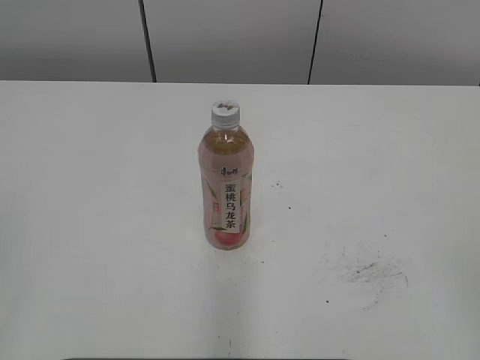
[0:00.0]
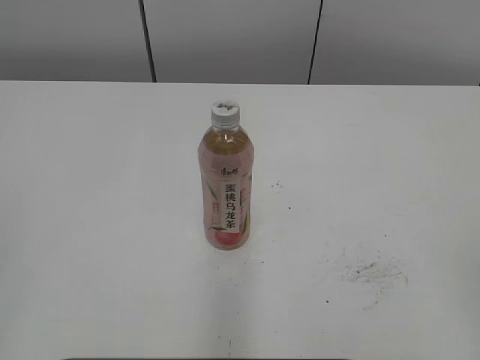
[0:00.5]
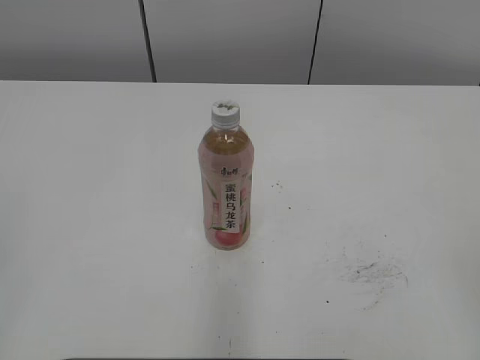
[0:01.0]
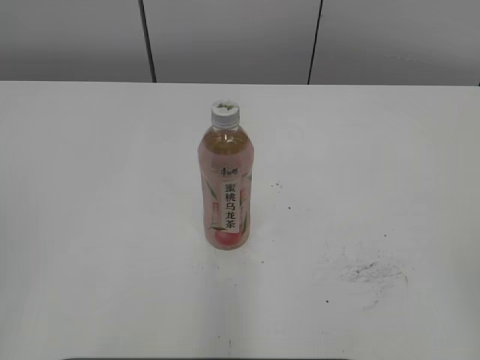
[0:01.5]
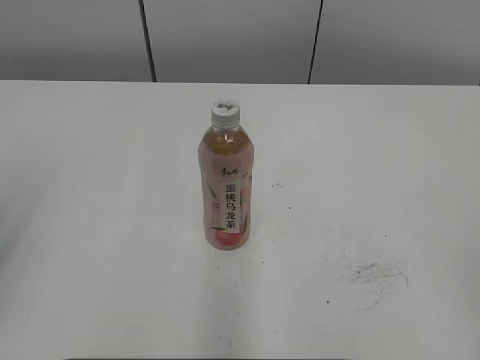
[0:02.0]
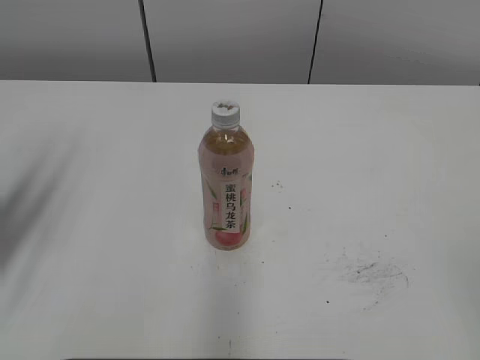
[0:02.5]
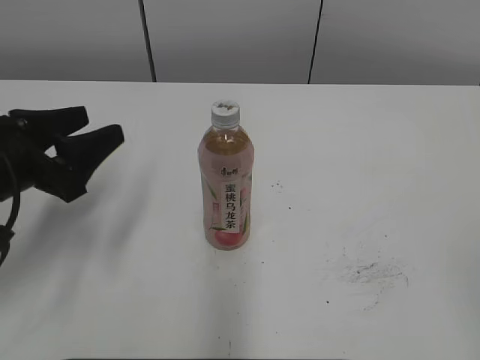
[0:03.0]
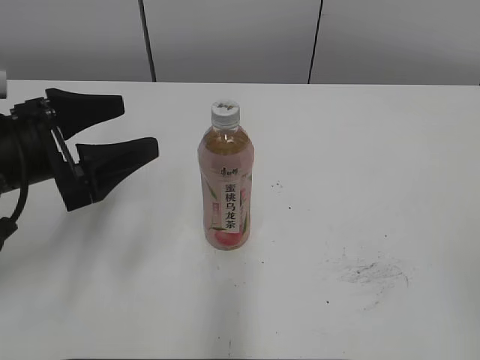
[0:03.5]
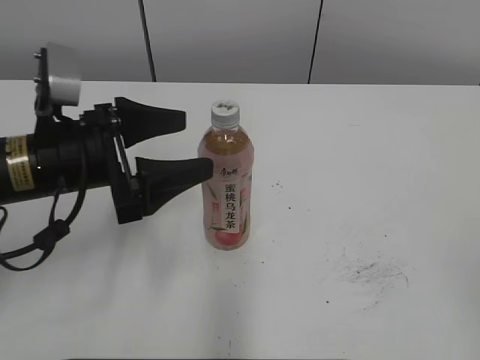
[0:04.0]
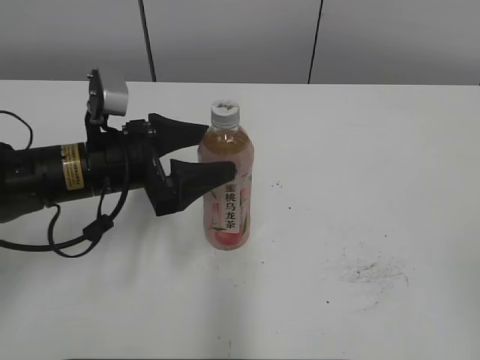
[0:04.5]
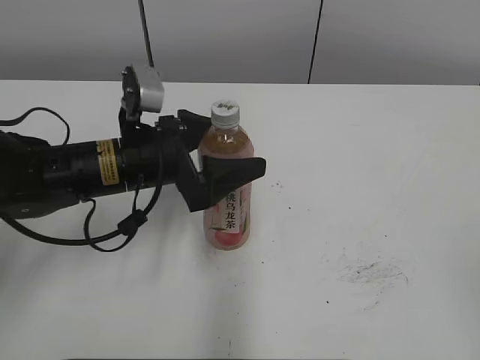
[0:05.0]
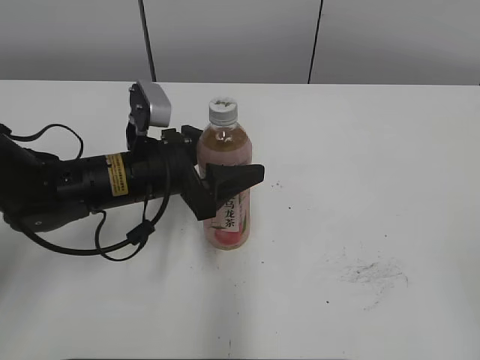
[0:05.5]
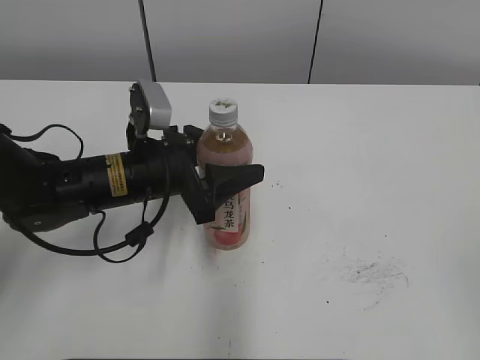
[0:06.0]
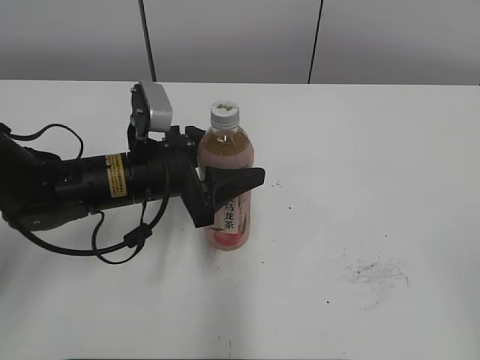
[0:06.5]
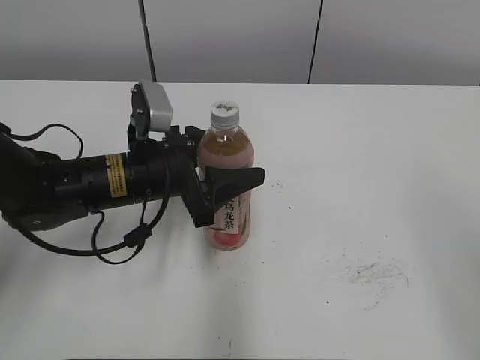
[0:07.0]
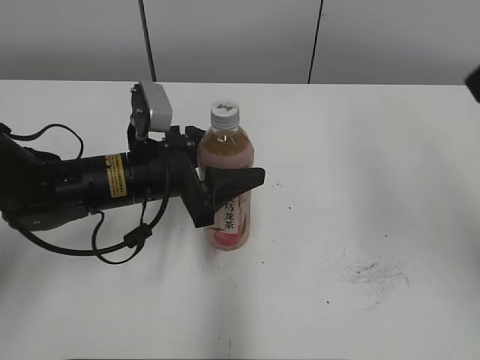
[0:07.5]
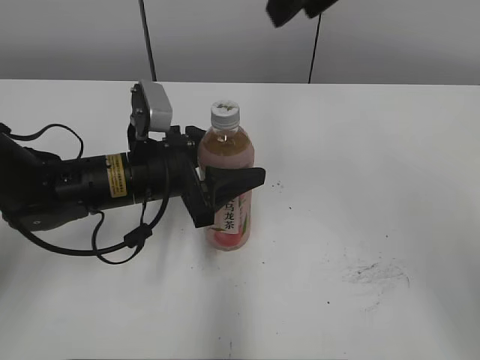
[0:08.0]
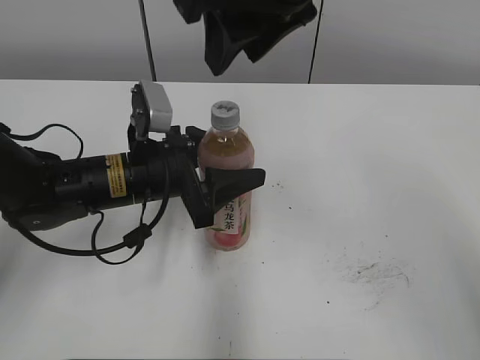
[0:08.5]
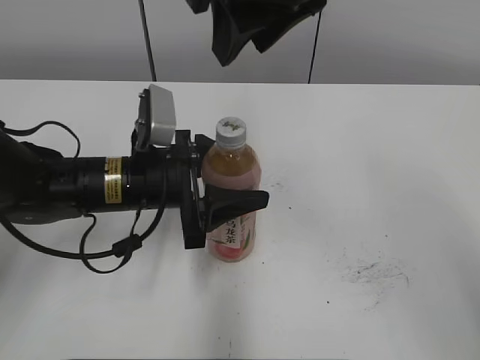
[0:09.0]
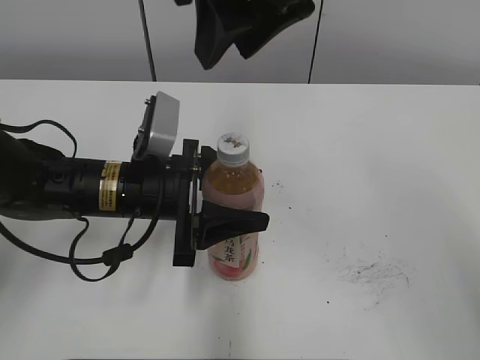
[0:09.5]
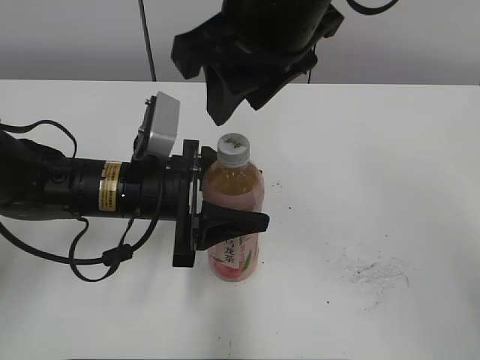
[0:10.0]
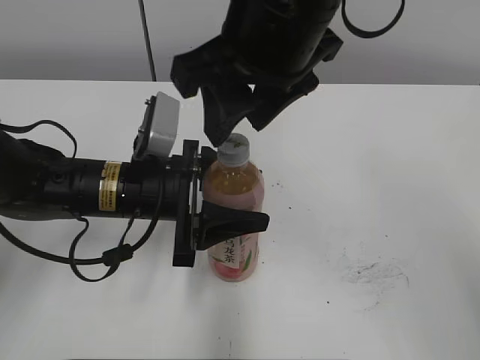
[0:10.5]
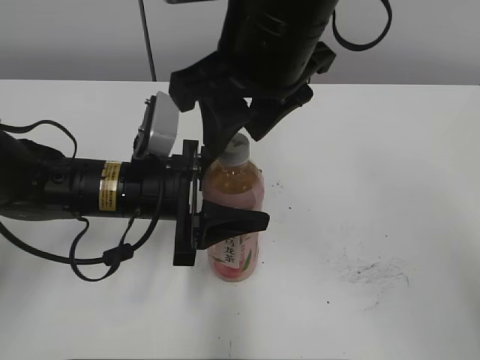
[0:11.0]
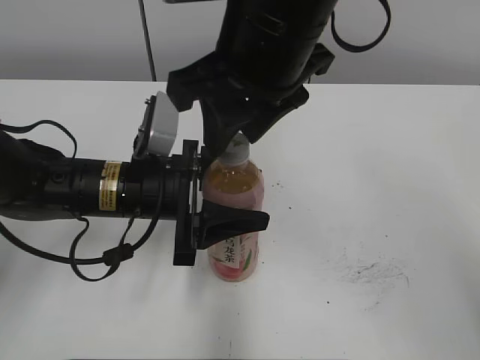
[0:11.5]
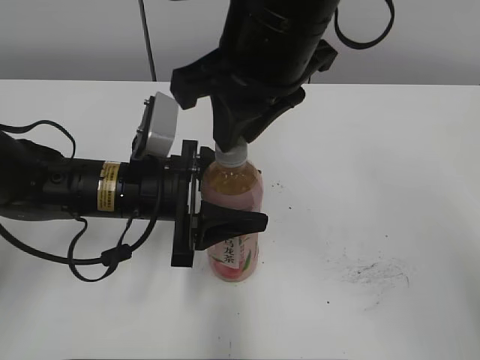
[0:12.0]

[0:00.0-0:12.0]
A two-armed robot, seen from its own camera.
Step, 0:00.0 to 0:06.0: Grab the Peach Oolong Tea with the left hand.
Step, 0:06.5 to 0:10.0: Move the Peach Oolong Tea from left to right.
0:02.0 to 0:04.0: The left gripper shifts about 25 cm forward, to the right and downward, and opens its fingers.
0:04.0 to 0:06.0: The left gripper shifts roughly 10 cm to the right and downward, and closes its fingers.
0:06.0 to 0:08.0: The right gripper shifts roughly 40 cm forward and to the left, and closes up.
0:08.0 to 0:10.0: The right gripper goes approximately 10 cm to the left and downward.
0:10.0 to 0:12.0: The grippers stay close to where they were, moving slightly.

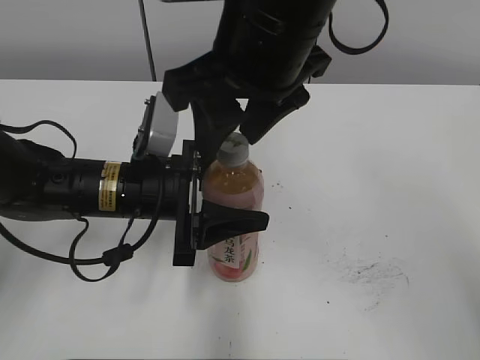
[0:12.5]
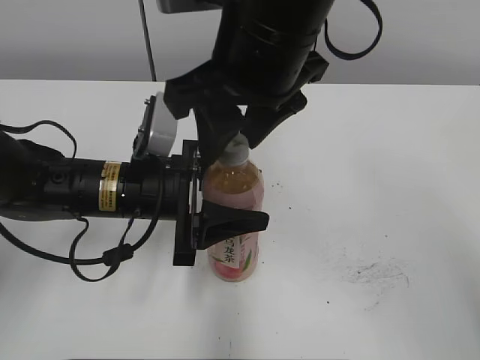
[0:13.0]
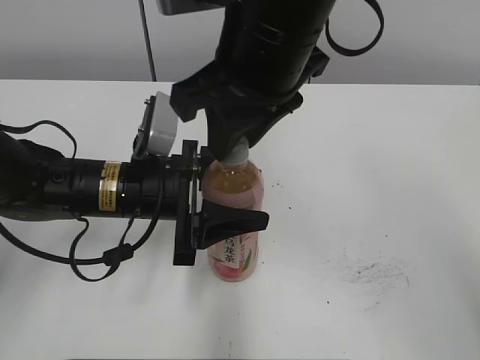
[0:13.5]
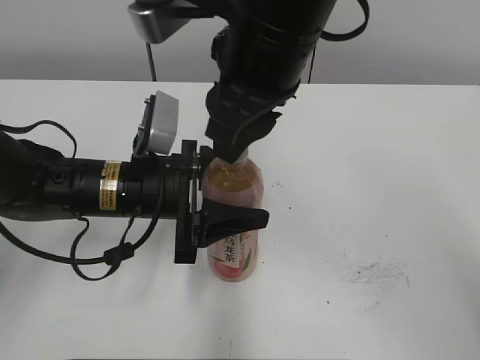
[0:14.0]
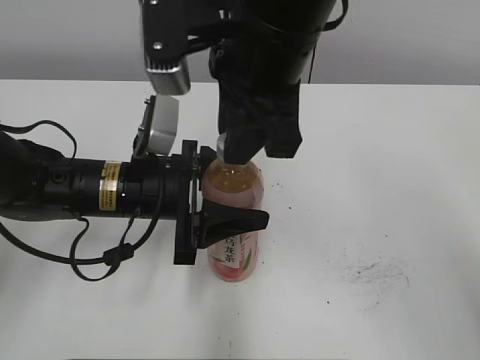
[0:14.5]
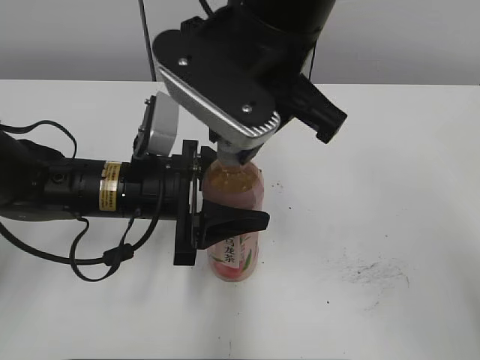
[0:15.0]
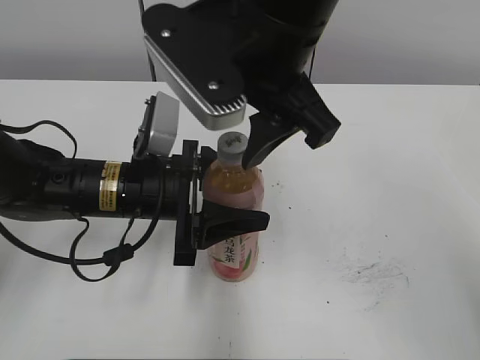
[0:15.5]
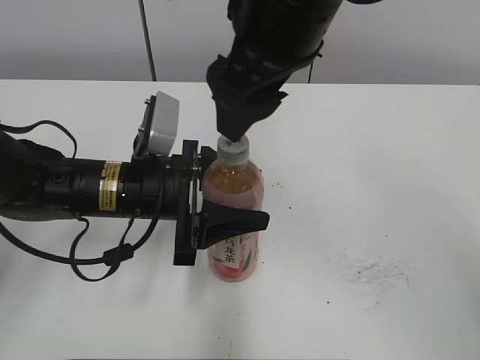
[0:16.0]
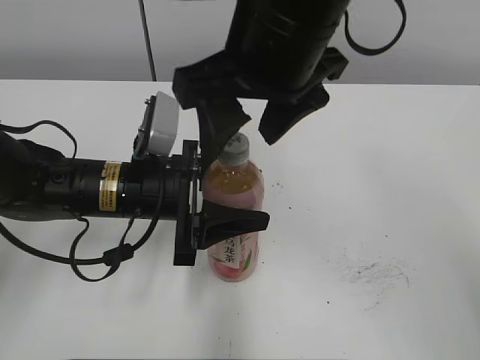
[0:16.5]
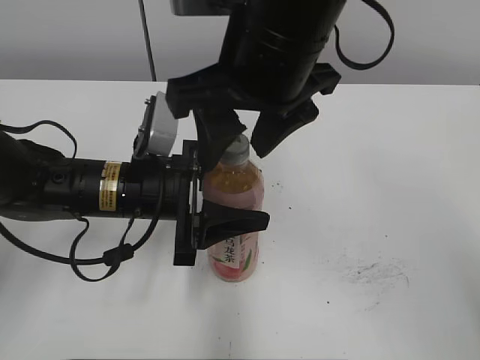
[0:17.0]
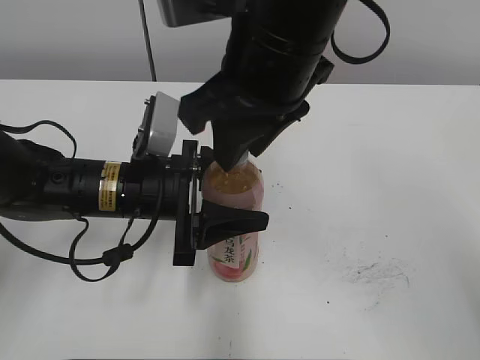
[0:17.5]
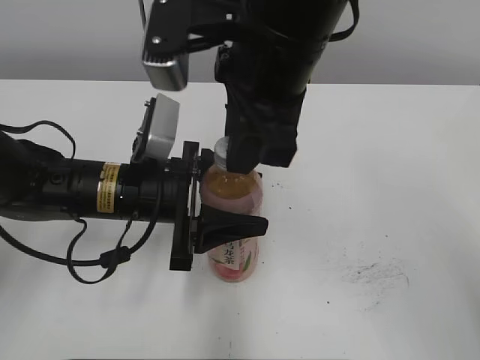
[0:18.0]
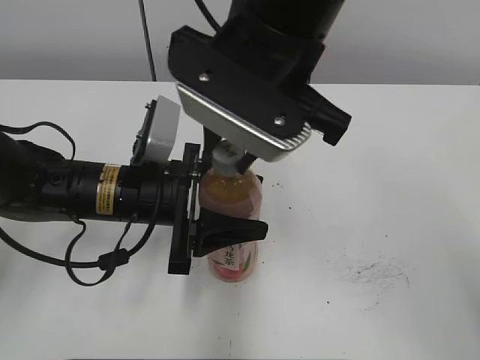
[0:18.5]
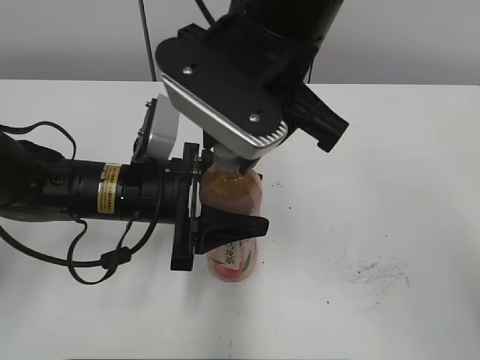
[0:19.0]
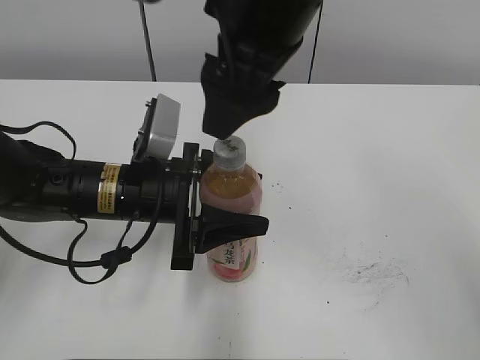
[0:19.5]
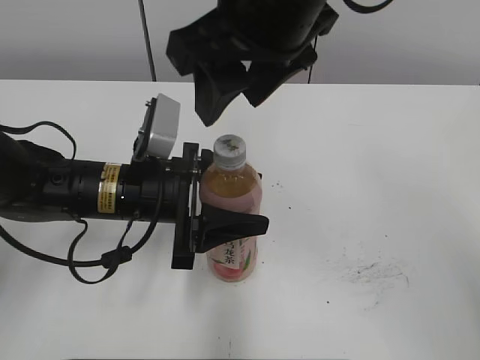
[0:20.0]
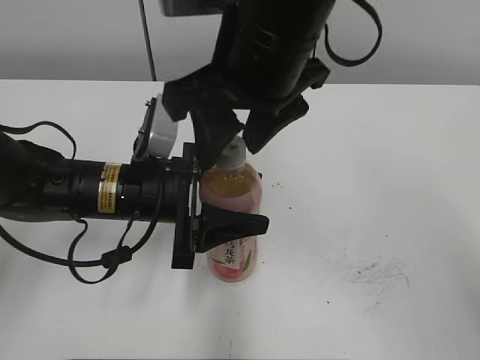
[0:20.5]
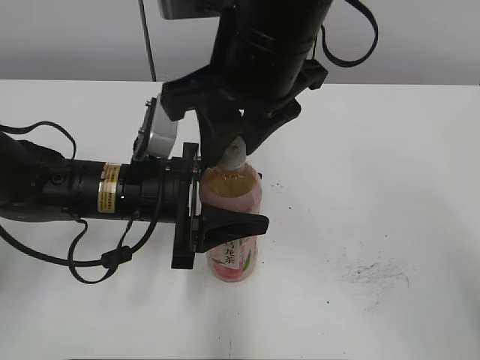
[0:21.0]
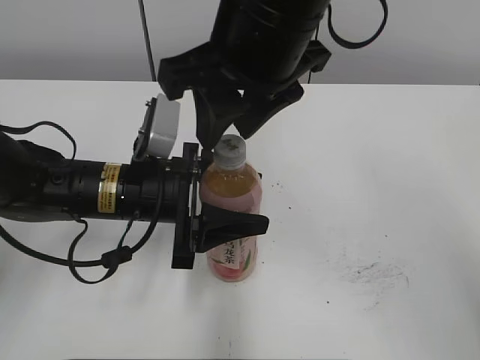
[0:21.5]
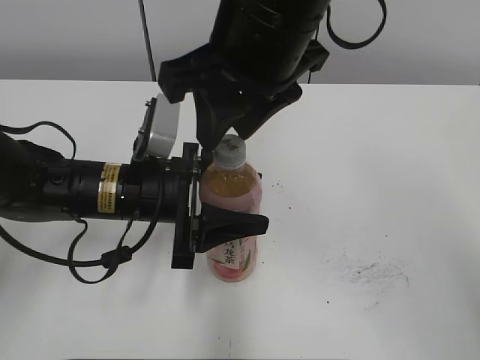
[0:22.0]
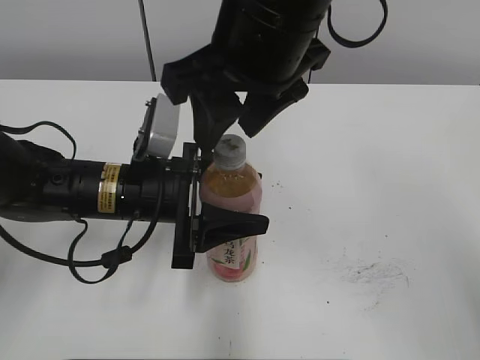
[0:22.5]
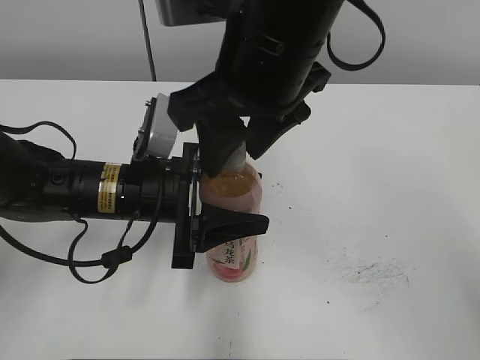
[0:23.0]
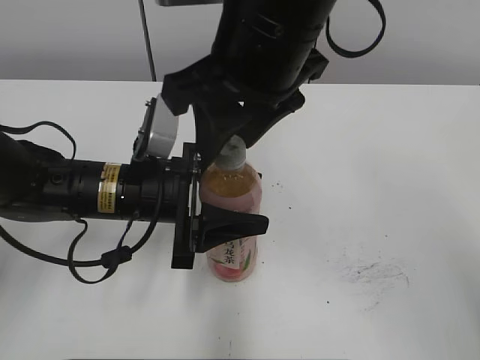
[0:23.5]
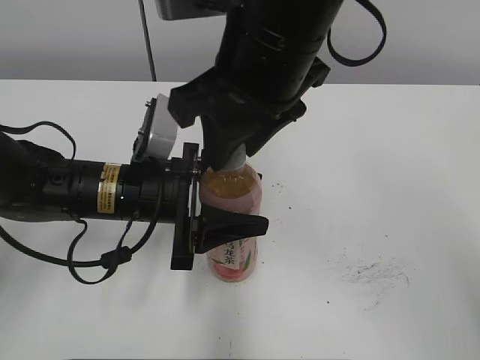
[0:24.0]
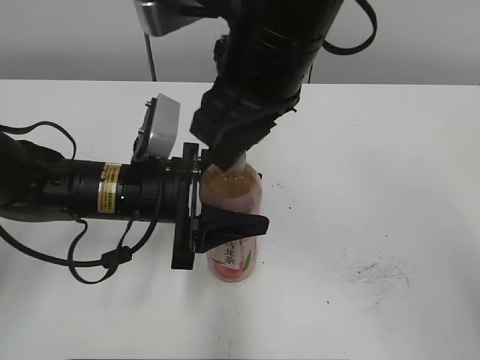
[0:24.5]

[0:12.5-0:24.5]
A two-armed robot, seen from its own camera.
0:12.5 to 0:14.5: The right gripper closes its fingers.
0:14.5 to 0:16.5: The right gripper opens.
0:16.5 to 0:18.5: The right gripper closes up.
0:18.5 to 0:20.5: The right gripper opens.
0:20.5 to 0:22.5: The two grippers keep their place.
0:22.5 to 0:24.5: The right gripper closes its fingers.

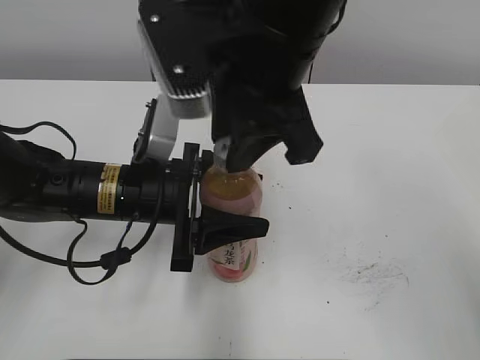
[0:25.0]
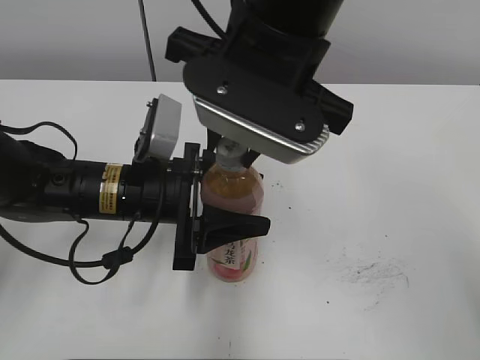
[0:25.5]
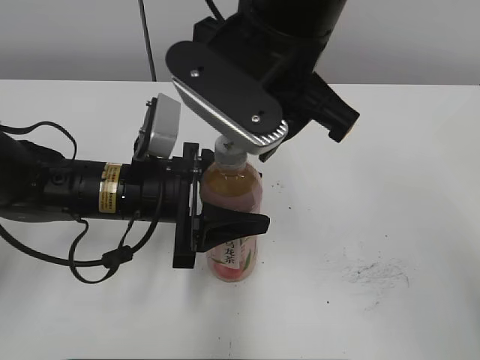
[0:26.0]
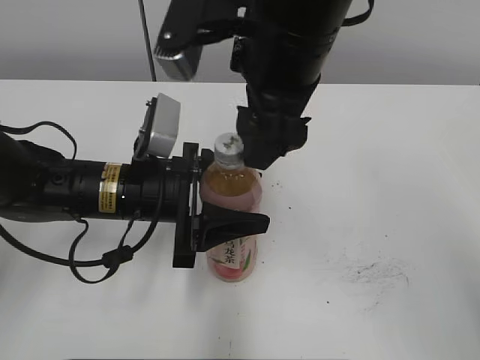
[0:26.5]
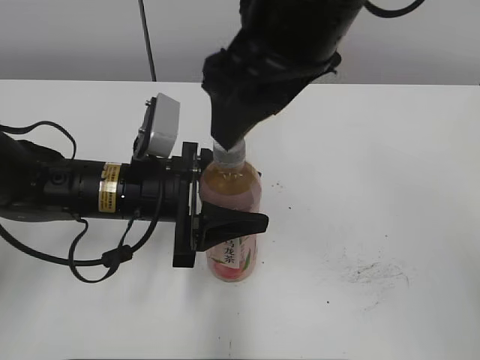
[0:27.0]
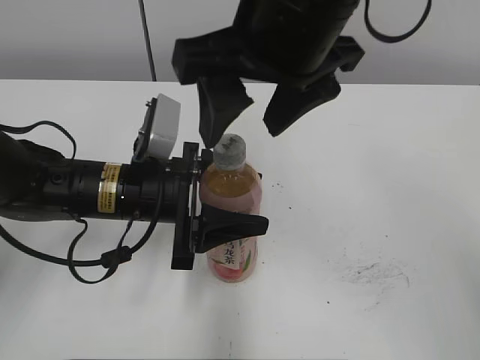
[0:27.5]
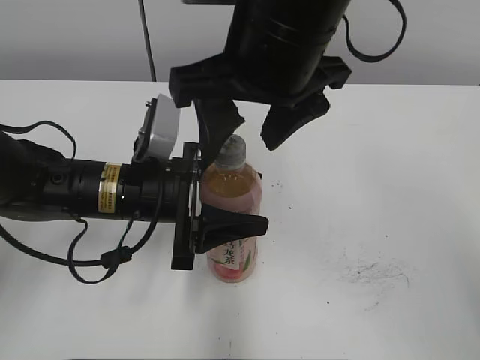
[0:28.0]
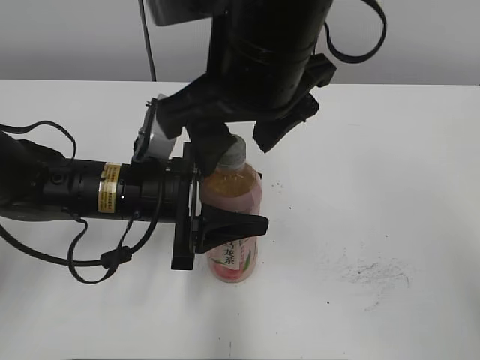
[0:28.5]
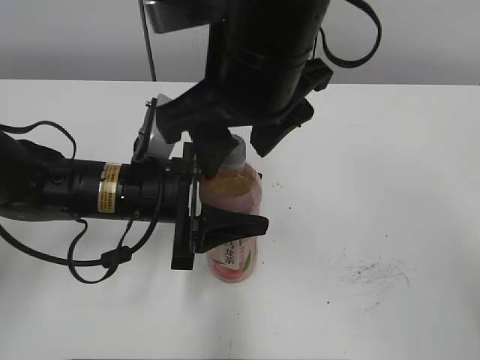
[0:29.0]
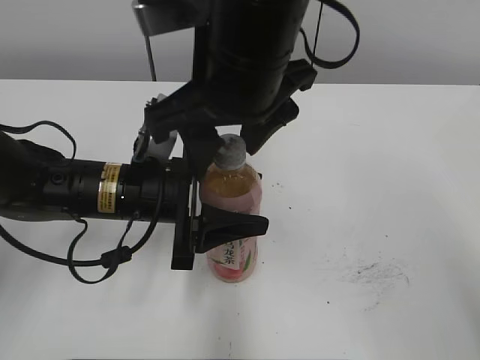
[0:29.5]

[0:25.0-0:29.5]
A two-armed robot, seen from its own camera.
0:25.0 to 0:27.0: The right gripper opens up.
0:27.0 to 0:29.5: The right gripper changes place by some 5 cm.
